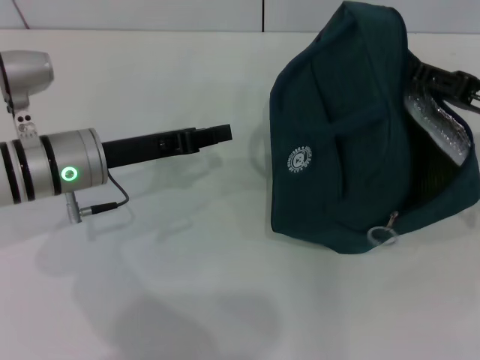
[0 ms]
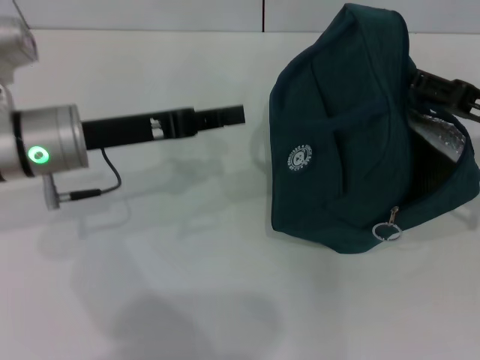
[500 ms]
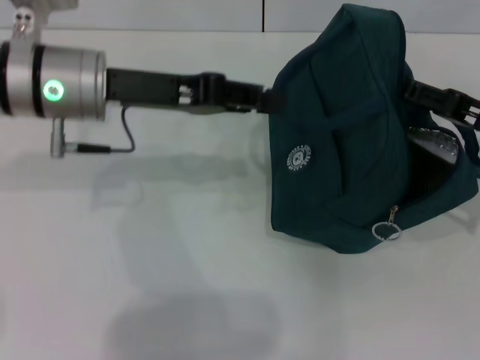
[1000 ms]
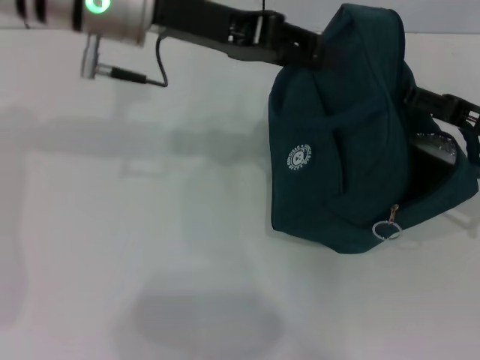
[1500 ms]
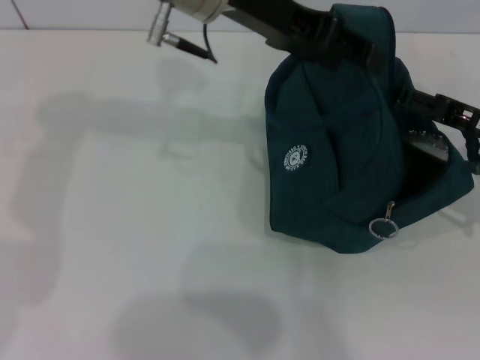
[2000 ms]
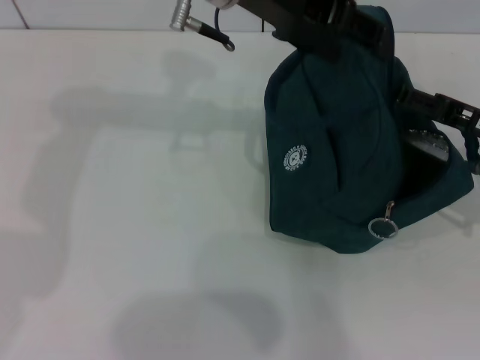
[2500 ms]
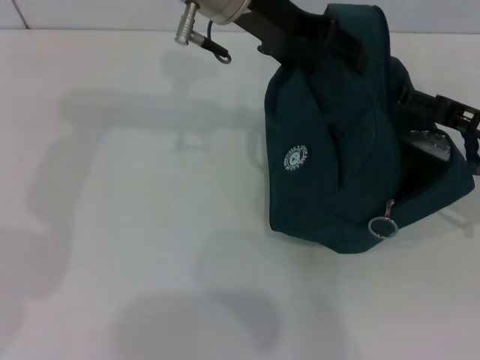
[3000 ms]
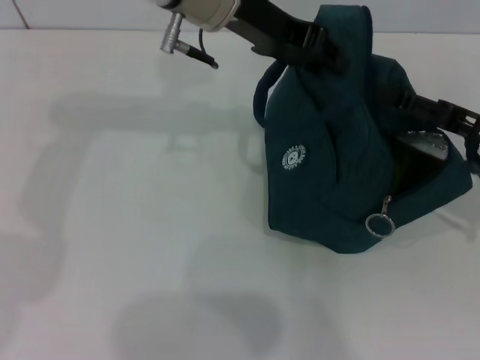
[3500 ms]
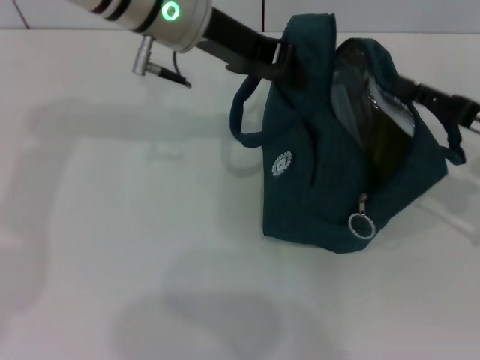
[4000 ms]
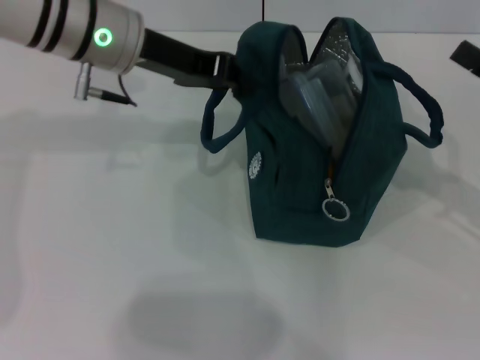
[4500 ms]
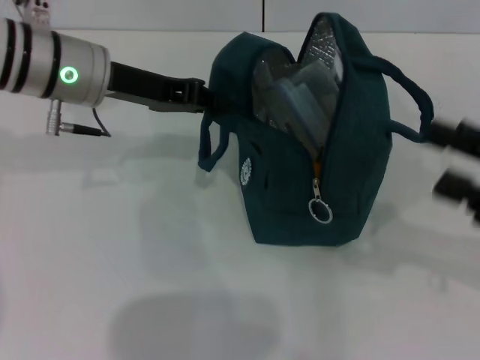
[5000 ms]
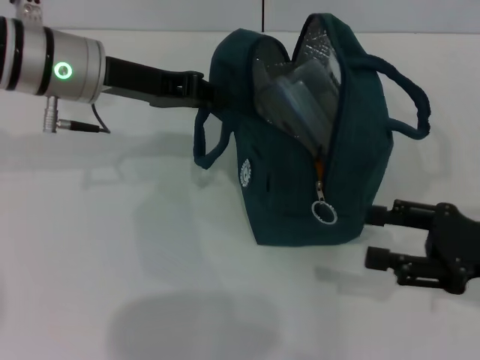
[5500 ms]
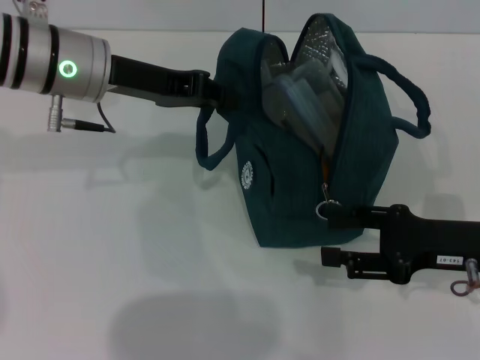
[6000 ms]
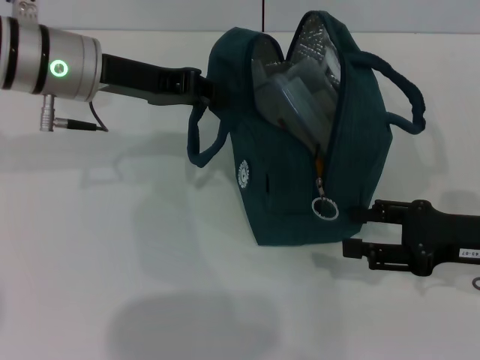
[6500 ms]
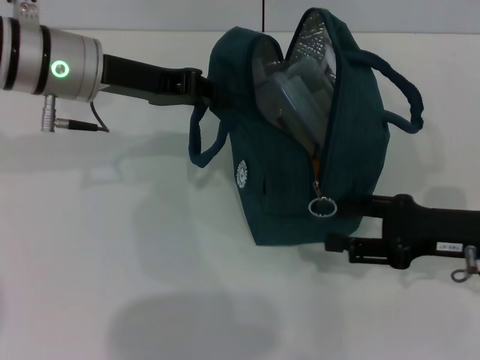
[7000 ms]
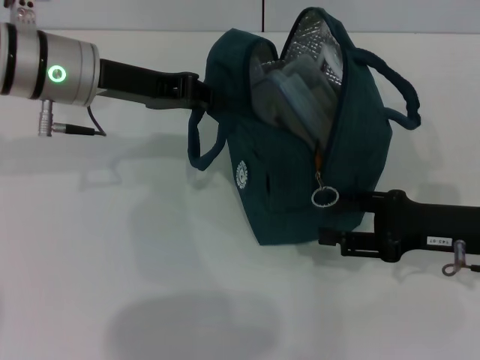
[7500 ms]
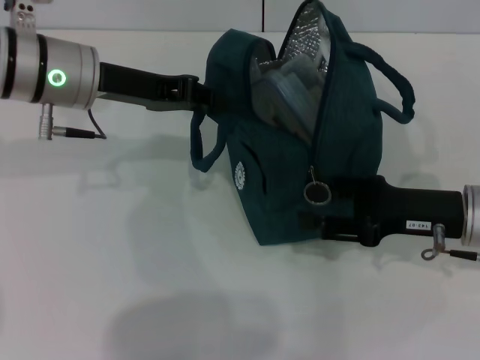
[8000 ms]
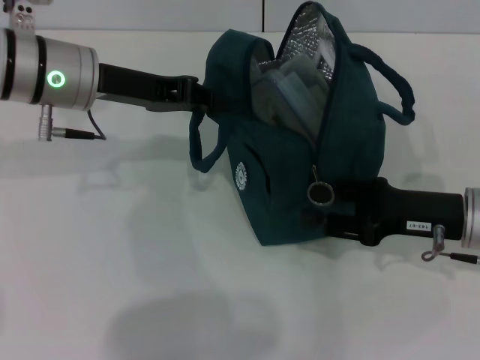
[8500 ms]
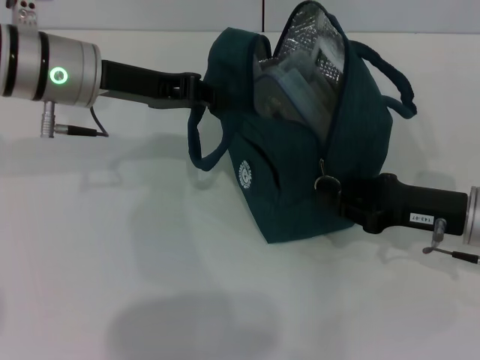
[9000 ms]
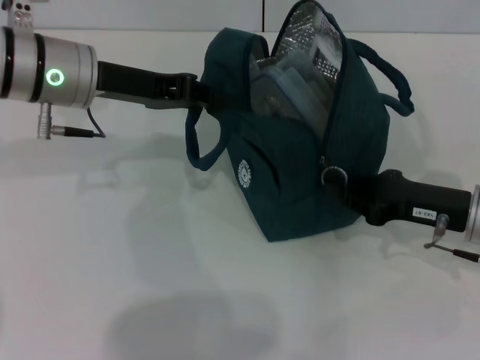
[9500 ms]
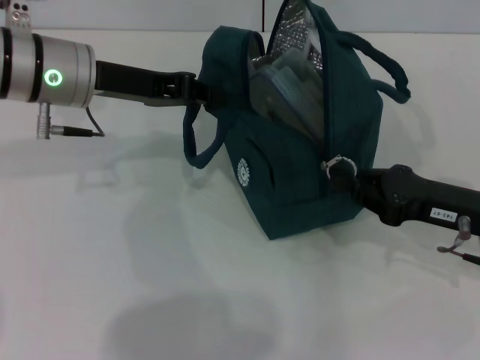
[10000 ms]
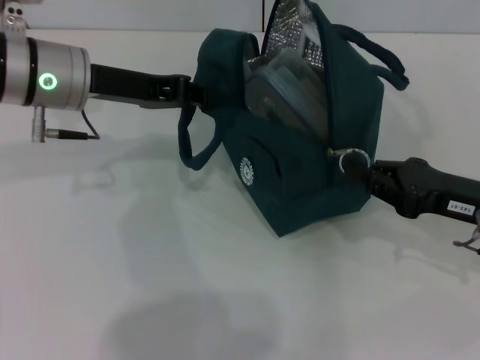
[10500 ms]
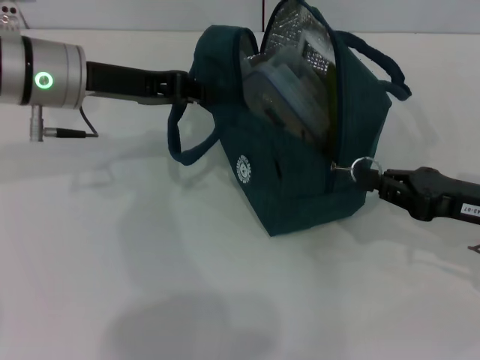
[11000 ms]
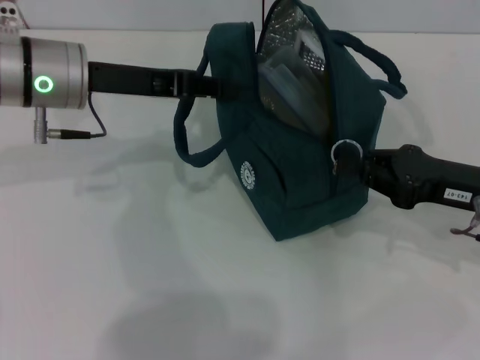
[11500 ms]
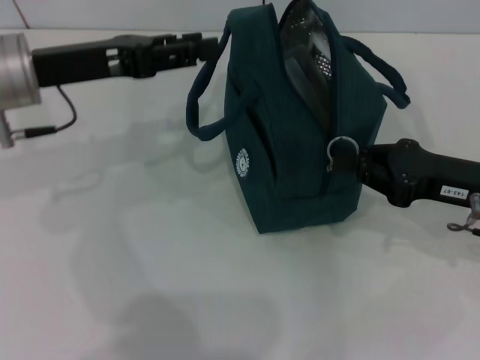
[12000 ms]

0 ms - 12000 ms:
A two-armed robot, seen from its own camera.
Step, 4500 ms - 11500 ms: Hold the lunch bag with your left hand.
0 ms - 2000 ms: The right gripper opens; the left gripper goes about 25 cm upward, to the right and forward, and opens its fingers.
2000 ms - 4000 ms: The left gripper closes.
4000 ms - 6000 ms: The left gripper shifts about 10 cm to the left. The right gripper ends up approximately 5 cm from where it was.
6000 ms - 8000 ms: The grippers move only a little.
8000 ms - 10000 ms: The right gripper closes its fingers.
10000 ms - 12000 ms: The left gripper opens up.

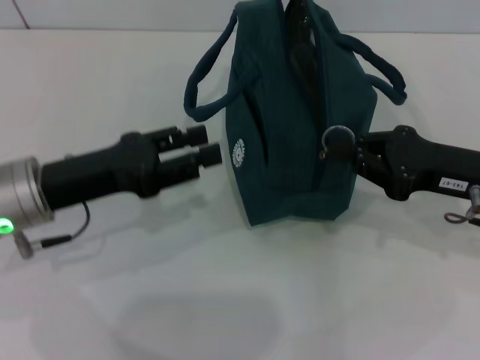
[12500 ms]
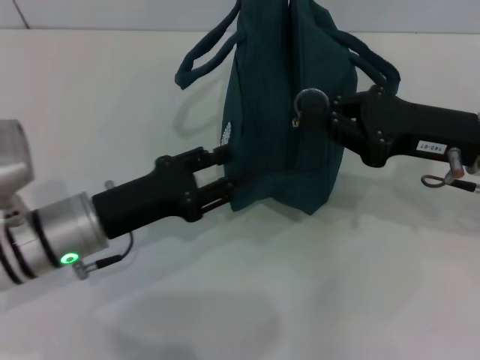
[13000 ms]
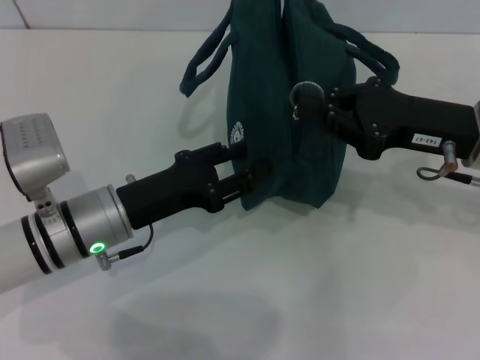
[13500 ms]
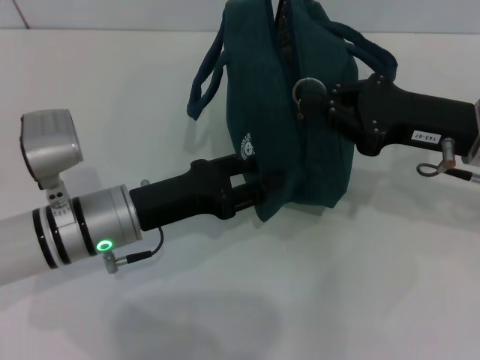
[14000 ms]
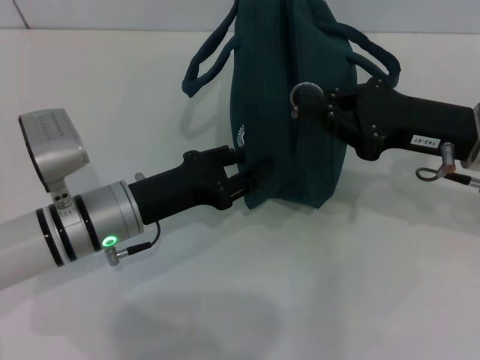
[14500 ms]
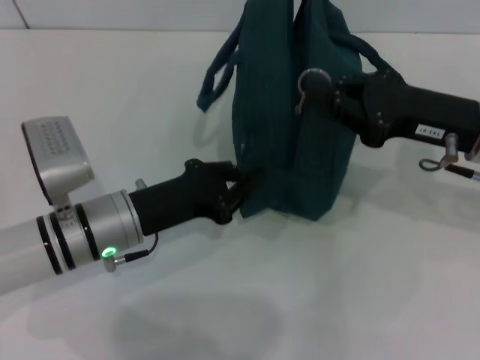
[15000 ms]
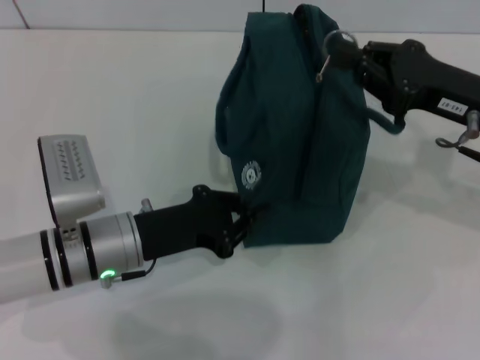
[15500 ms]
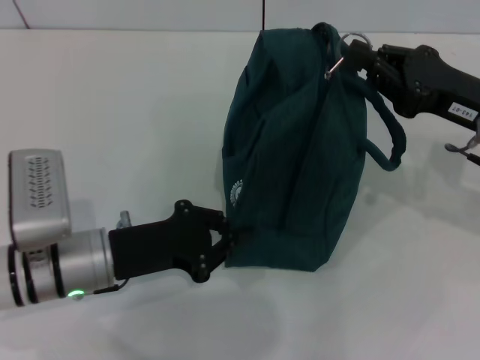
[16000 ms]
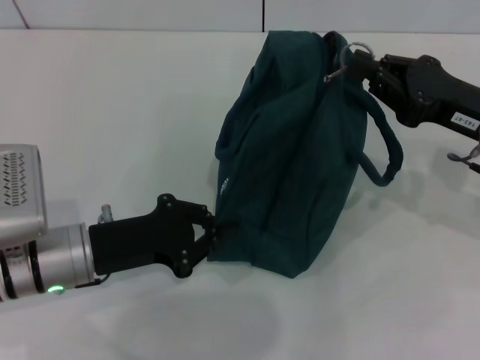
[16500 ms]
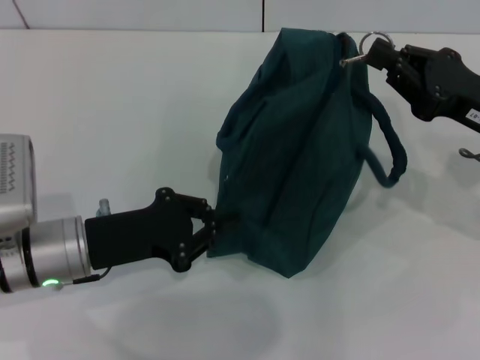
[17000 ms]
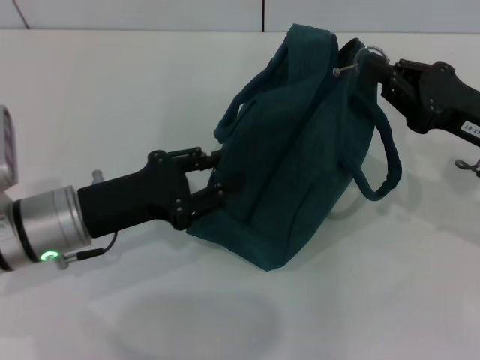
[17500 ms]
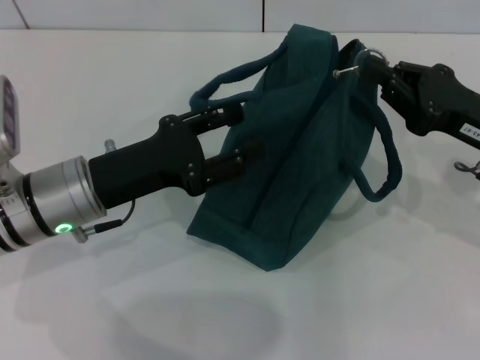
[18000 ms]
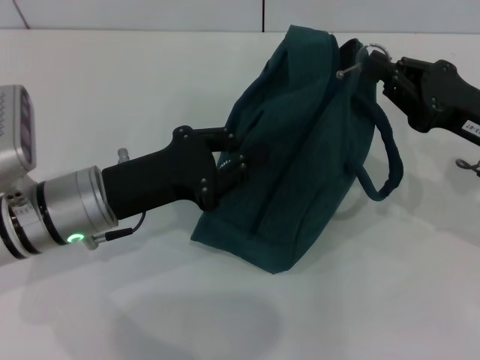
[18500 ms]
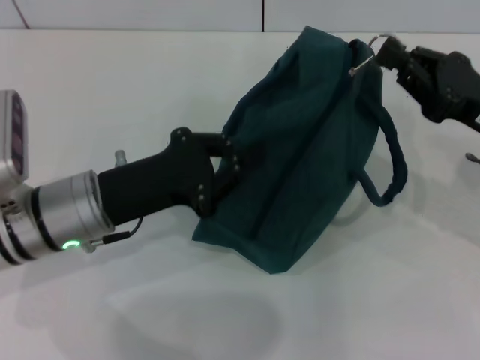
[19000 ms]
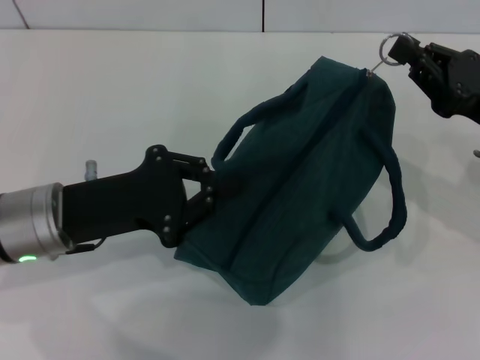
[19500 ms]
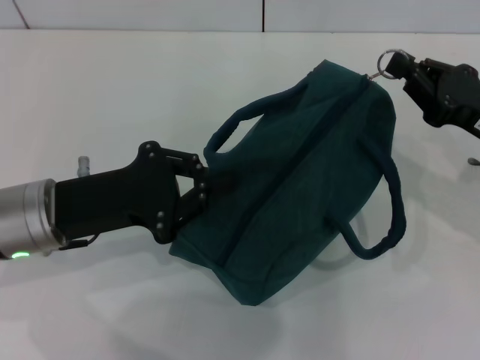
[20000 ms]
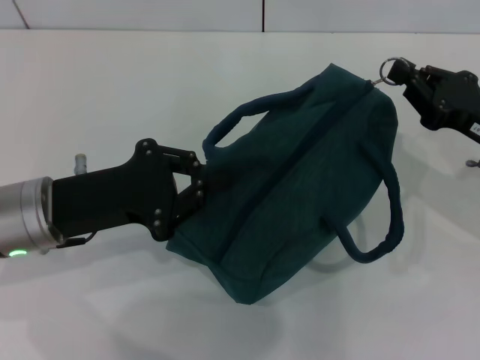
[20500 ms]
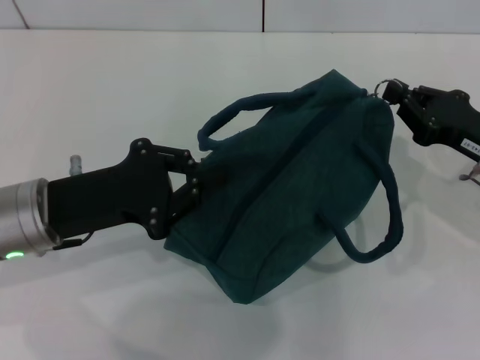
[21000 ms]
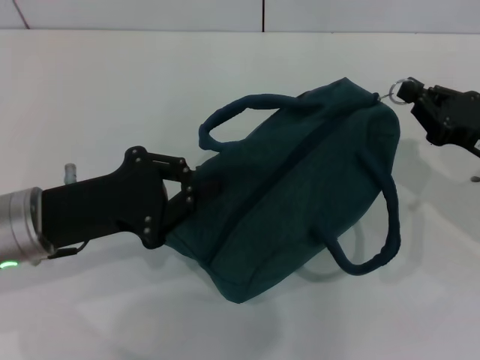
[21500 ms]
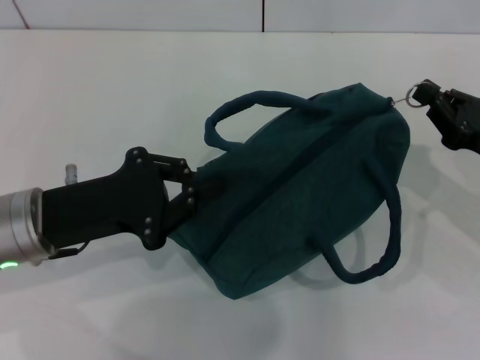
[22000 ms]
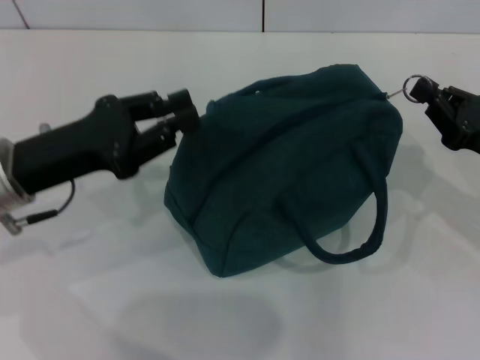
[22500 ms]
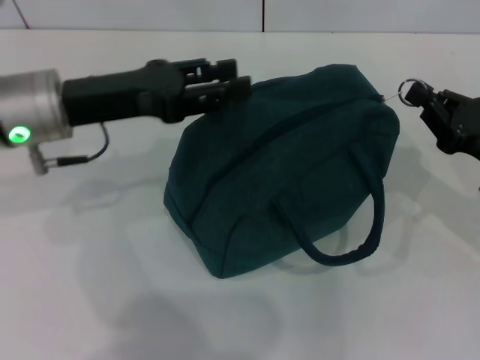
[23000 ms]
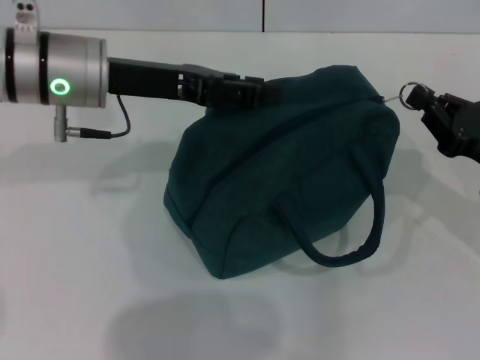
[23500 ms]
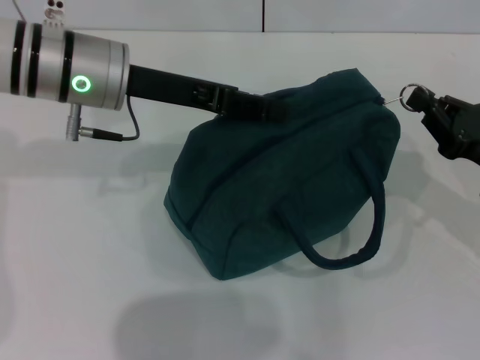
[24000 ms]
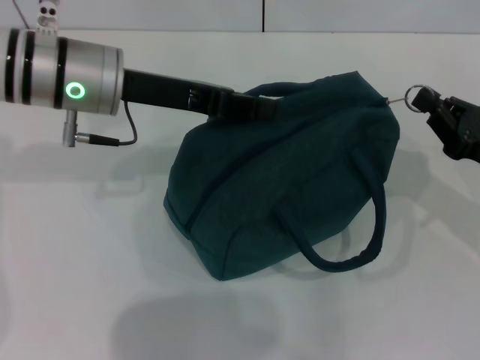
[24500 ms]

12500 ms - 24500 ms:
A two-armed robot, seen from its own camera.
12500 ms - 14500 ms: The left gripper moves to the right and downward, about 10 cm.
14500 ms - 16500 ms: The left gripper shifts by roughly 5 cm, and closes.
16500 ms - 18500 ms: The left gripper shifts by about 5 cm, and opens, then closes again.
22500 ms - 24500 ms: The left gripper heads forward, to the right and upward, covering approximately 15 cm, and opens and closes again.

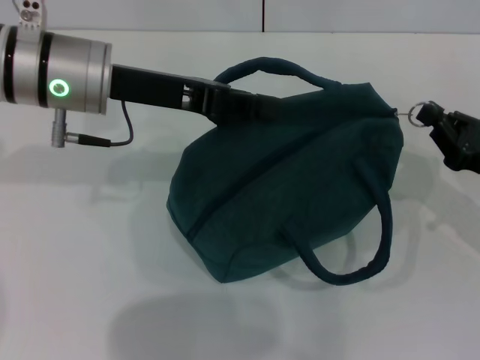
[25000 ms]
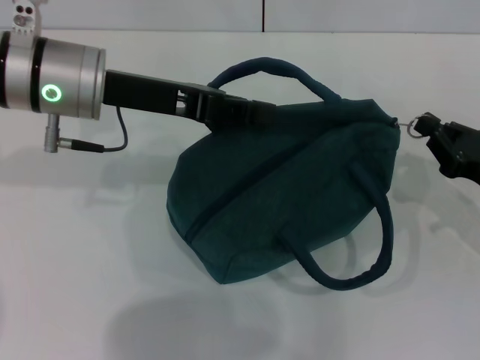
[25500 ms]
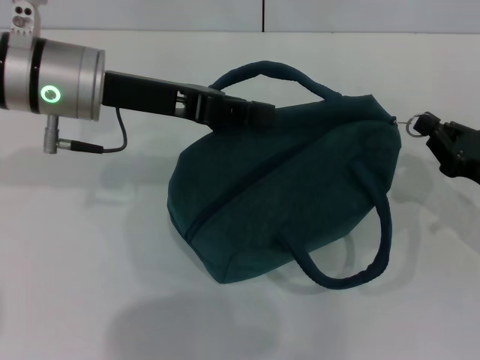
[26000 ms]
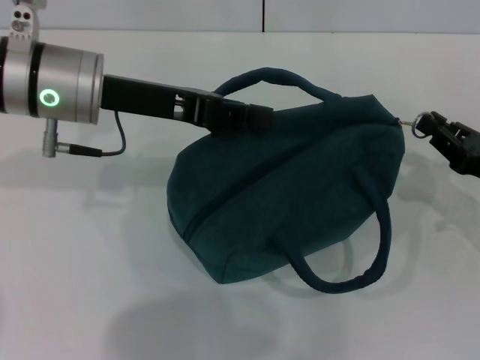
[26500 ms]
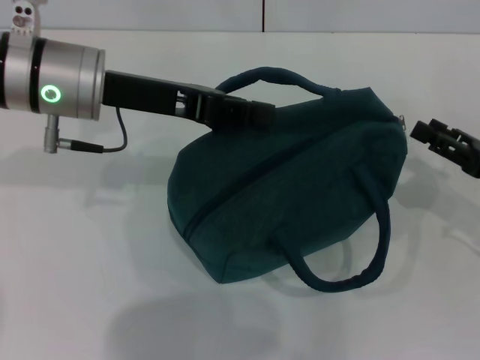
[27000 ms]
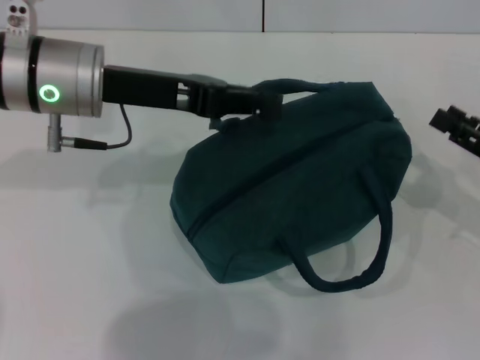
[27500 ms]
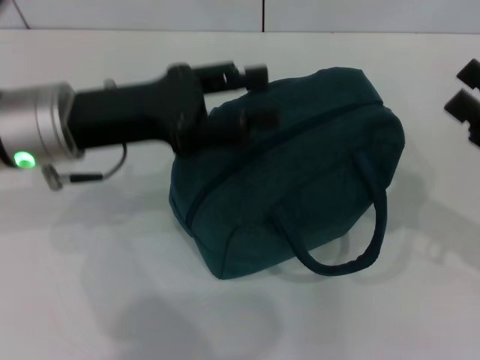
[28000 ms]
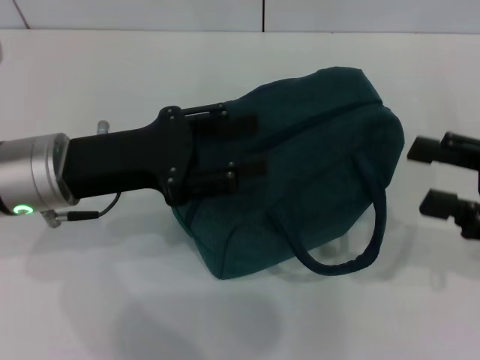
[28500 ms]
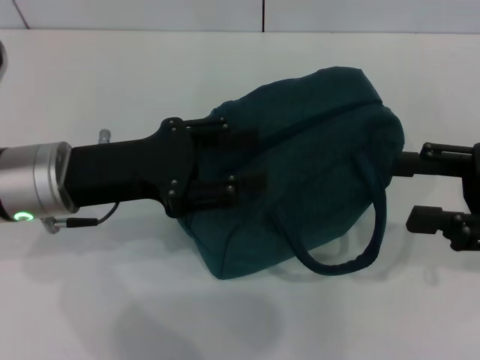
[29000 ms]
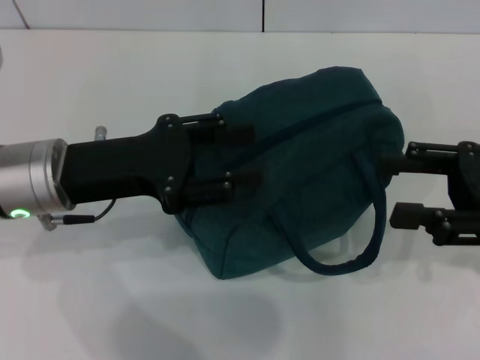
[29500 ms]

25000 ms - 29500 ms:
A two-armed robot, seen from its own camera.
Step, 25000 ms - 27000 ms: Zip up the lunch bag with your right hand.
25000 ms - 27000 ms: The right gripper opens.
27000 ms - 29500 ms: The left gripper is displaced backward and downward by some 10 cm, and opens; the right gripper moves upward, approximately 10 cm.
